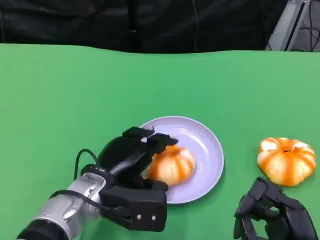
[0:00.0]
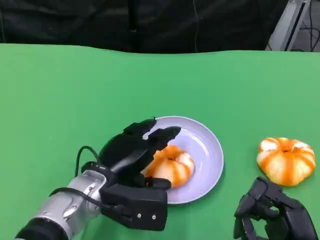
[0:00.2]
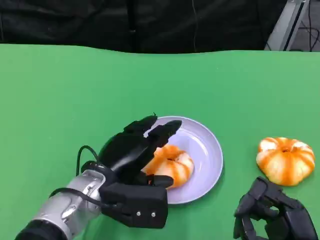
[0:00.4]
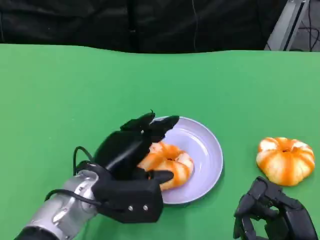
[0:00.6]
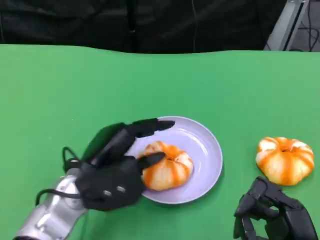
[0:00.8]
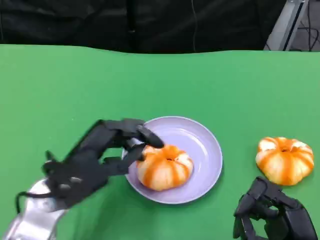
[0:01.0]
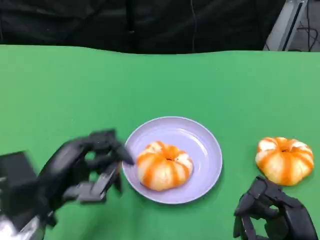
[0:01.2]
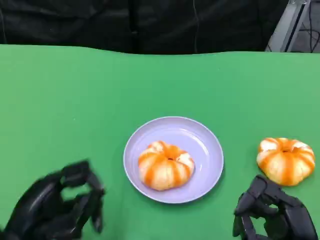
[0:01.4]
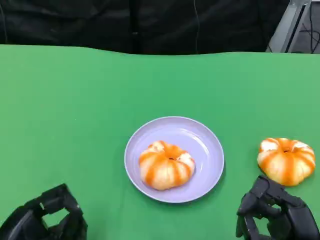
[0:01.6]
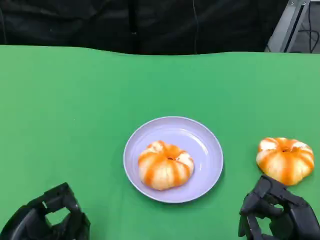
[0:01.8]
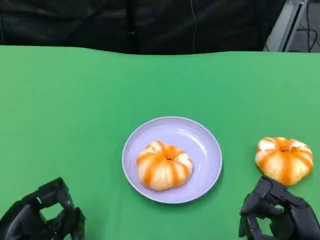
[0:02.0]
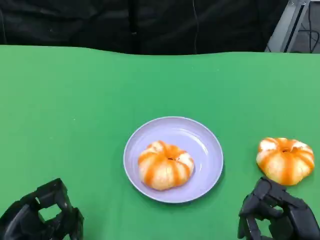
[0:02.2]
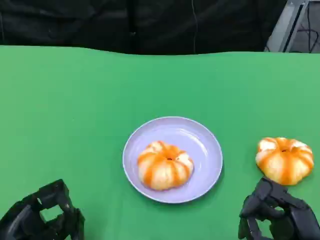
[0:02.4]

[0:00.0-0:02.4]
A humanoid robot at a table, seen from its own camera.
Task of the whole recording: Grasp the bread from the table and place it into the plate.
0:00.0 to 0:01.2: The left hand is displaced to the left and backward by some 10 cm.
0:01.2 to 0:02.4: The left hand travels backward by approximately 5 cm.

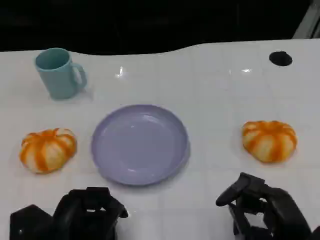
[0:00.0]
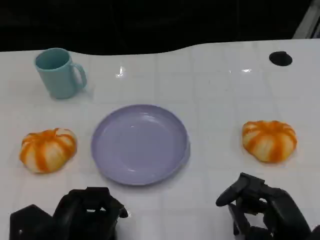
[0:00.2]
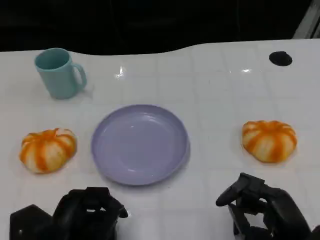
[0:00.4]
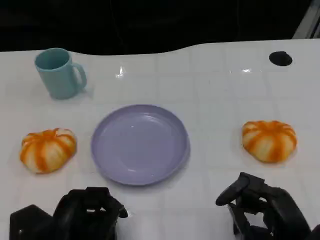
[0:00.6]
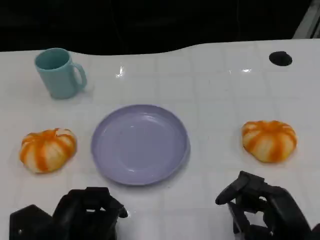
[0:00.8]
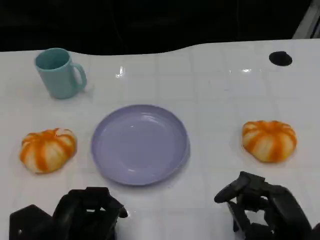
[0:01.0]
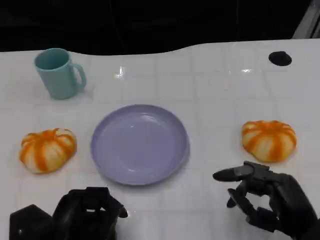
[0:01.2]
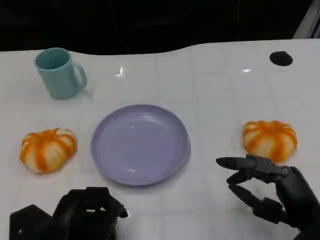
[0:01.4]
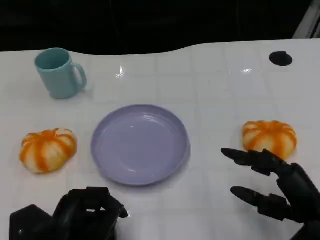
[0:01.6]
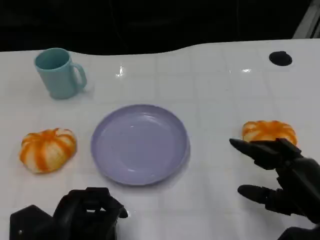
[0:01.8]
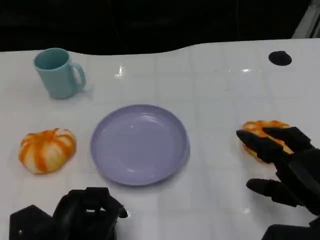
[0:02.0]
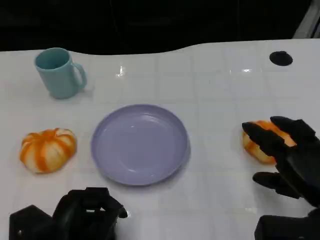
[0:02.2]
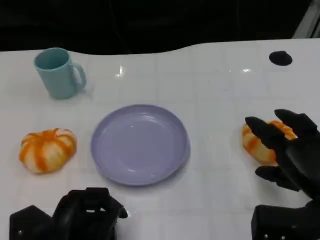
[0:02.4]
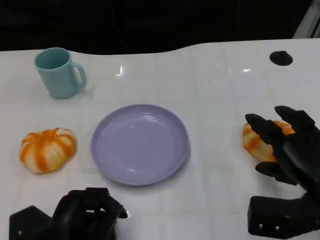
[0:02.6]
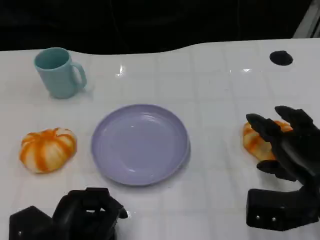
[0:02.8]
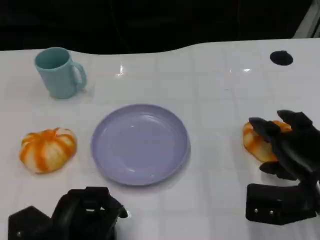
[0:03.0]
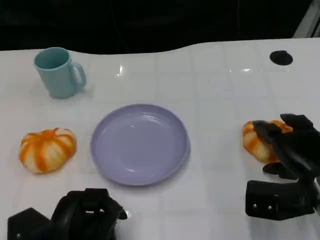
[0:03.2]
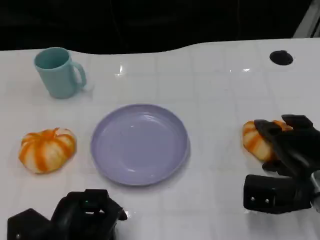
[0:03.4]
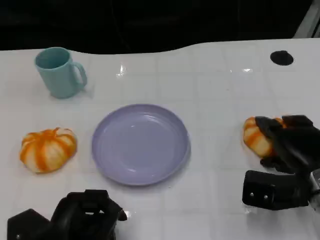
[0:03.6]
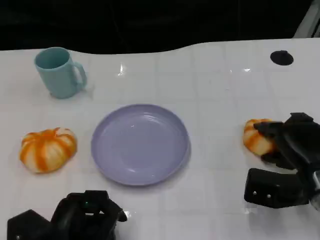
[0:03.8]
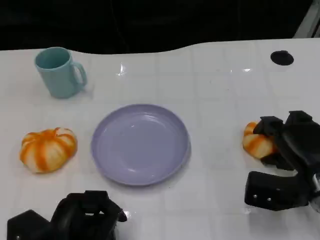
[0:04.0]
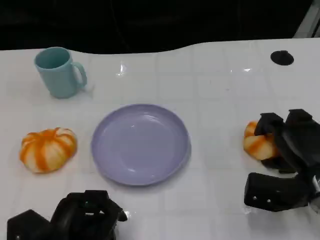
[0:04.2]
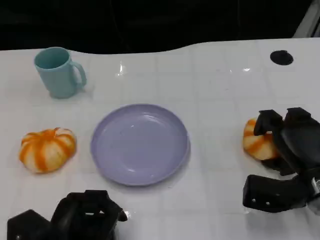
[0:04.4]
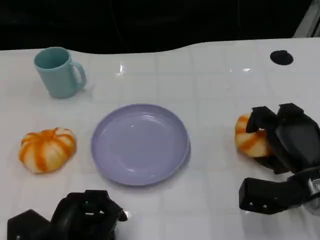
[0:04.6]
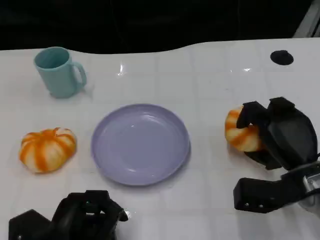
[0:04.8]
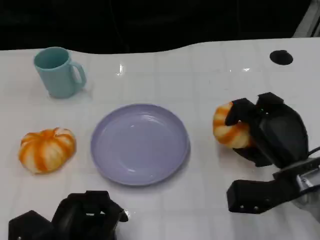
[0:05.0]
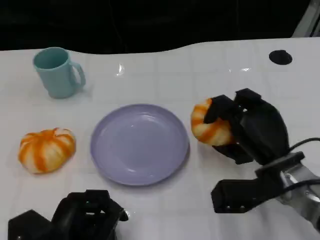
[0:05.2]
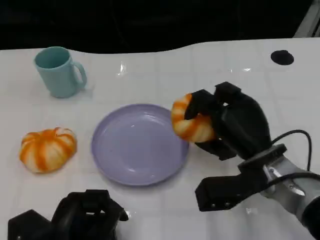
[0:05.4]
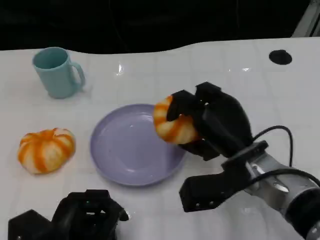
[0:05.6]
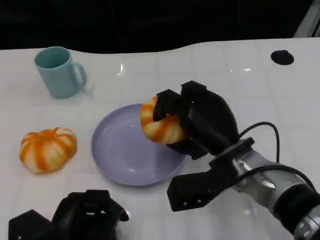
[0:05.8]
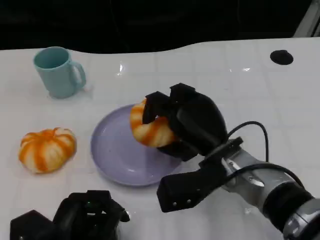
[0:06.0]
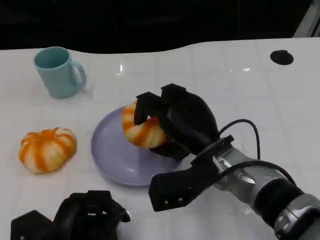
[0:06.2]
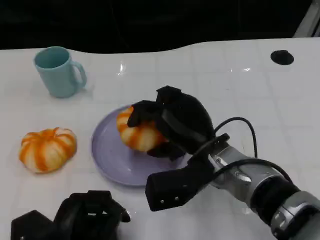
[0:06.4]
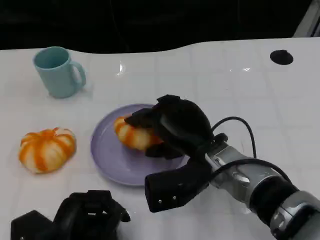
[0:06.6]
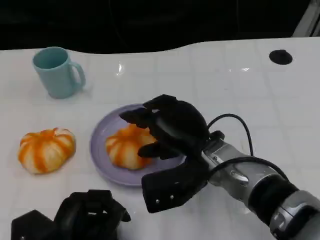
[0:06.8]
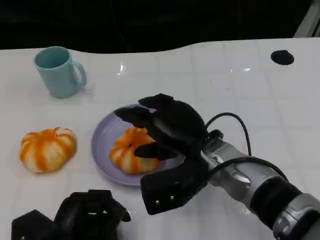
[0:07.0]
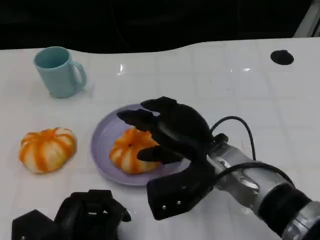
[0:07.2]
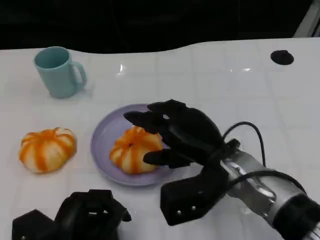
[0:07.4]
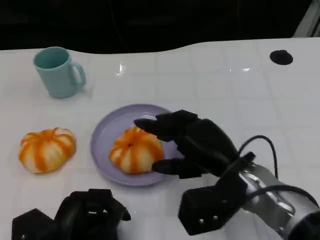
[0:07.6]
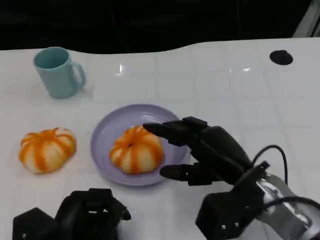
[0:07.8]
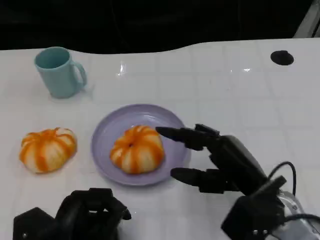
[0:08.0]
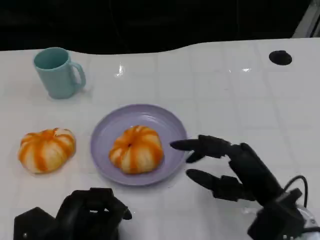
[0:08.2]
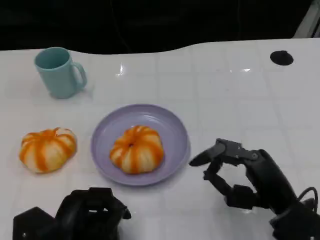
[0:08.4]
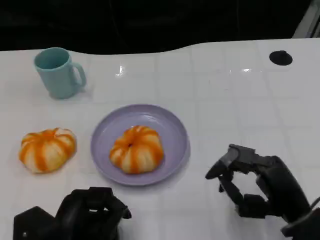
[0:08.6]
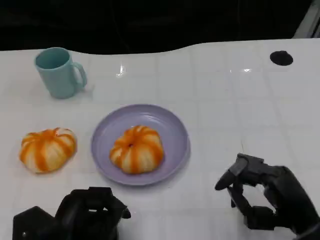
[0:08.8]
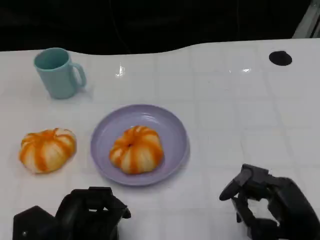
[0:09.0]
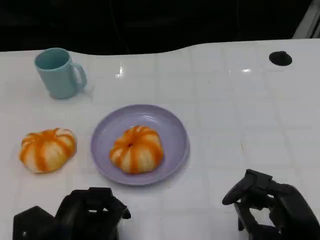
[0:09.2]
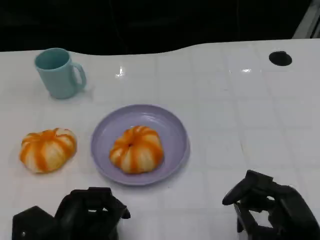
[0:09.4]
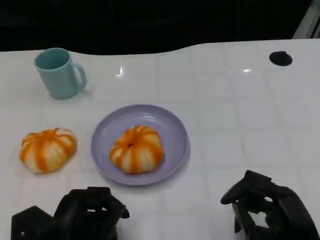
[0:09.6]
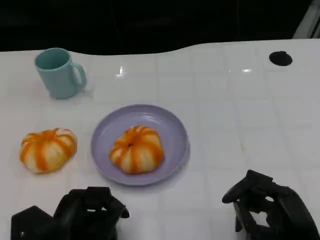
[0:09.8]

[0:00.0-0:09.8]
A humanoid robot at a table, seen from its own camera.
Task of the whole recording: Grasp the bread from the table and place it into the plate.
0:00.0 to 0:01.4: The hands move only a little.
0:01.4 to 0:02.8: The right hand goes some 5 cm forward.
0:02.8 to 0:04.2: The right hand changes place by about 5 cm.
0:04.2 to 0:05.6: The right hand shifts approximately 10 cm to the left.
0:05.6 to 0:07.0: The right hand is displaced to the left by approximately 5 cm.
0:07.0 to 0:08.4: The right hand goes roughly 15 cm to the right and backward.
0:08.4 to 0:09.8: The right hand shifts some 5 cm backward.

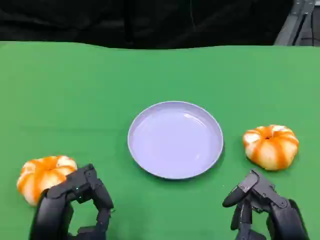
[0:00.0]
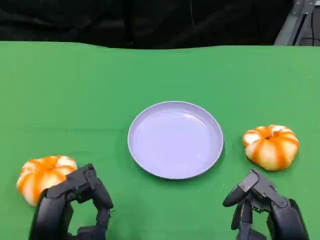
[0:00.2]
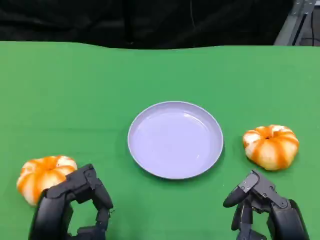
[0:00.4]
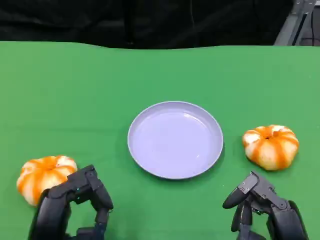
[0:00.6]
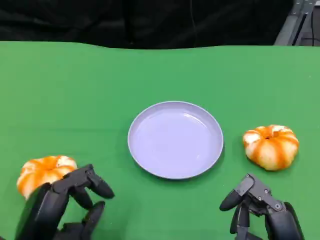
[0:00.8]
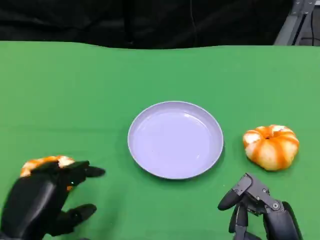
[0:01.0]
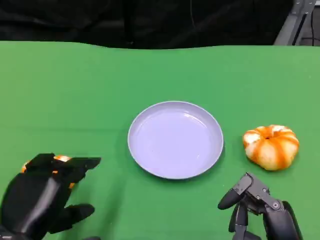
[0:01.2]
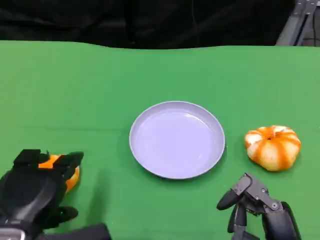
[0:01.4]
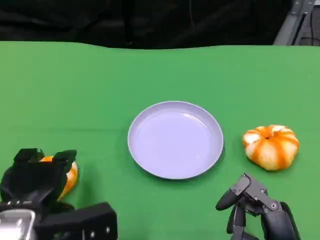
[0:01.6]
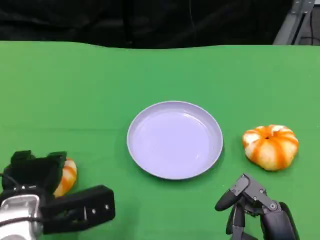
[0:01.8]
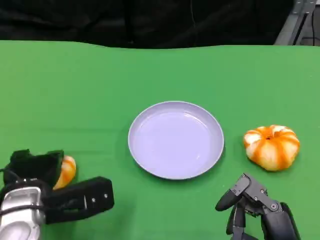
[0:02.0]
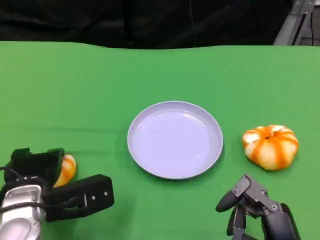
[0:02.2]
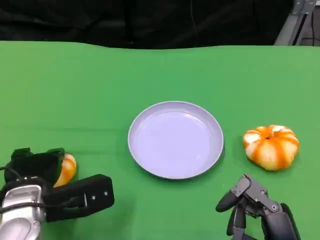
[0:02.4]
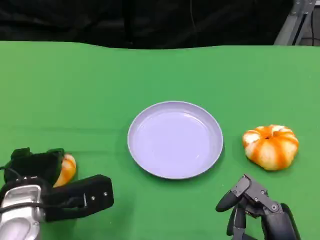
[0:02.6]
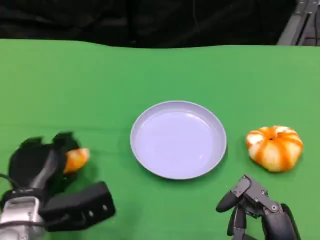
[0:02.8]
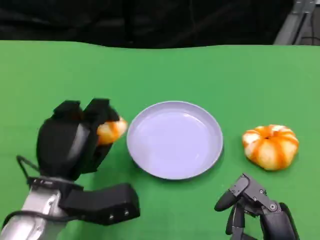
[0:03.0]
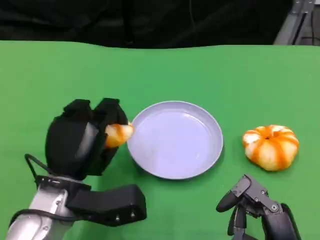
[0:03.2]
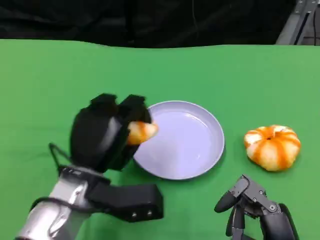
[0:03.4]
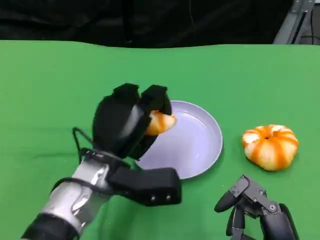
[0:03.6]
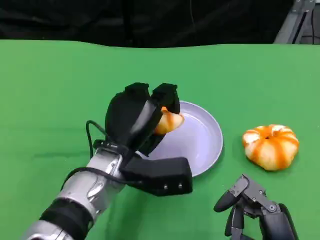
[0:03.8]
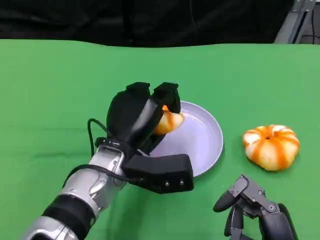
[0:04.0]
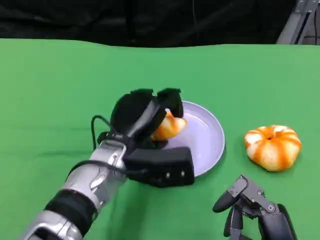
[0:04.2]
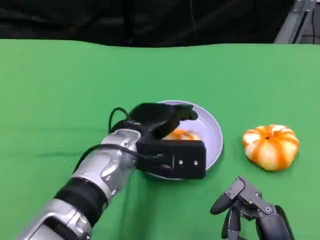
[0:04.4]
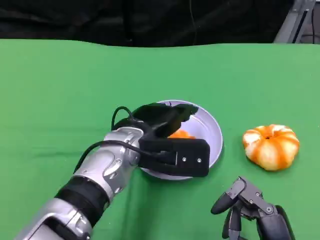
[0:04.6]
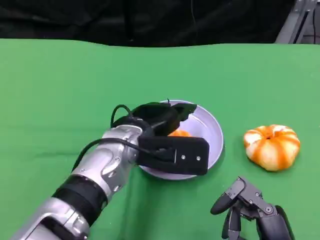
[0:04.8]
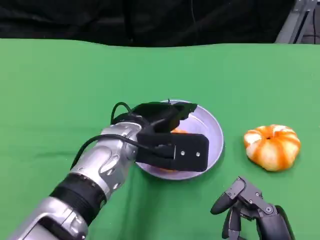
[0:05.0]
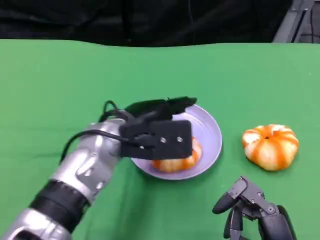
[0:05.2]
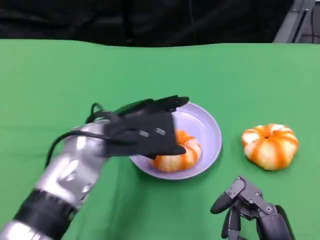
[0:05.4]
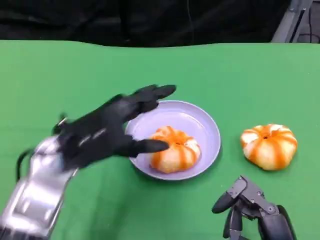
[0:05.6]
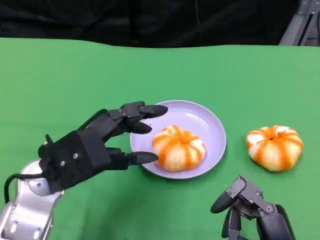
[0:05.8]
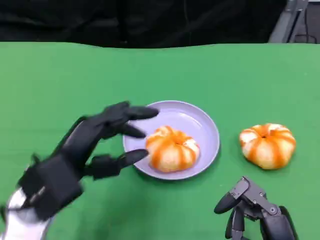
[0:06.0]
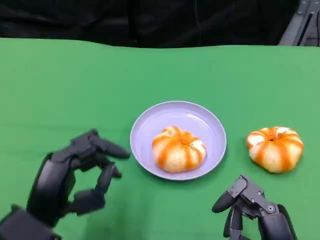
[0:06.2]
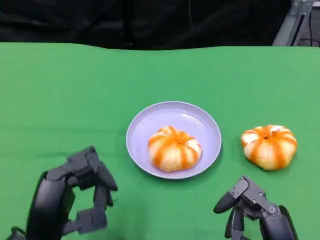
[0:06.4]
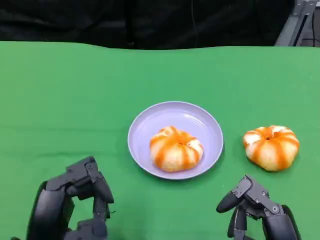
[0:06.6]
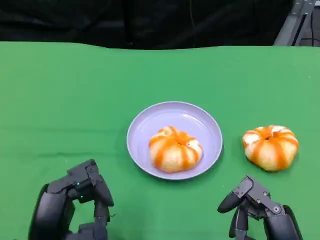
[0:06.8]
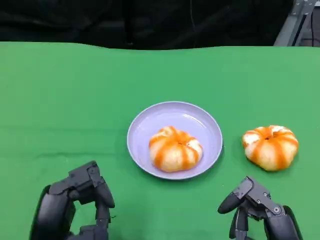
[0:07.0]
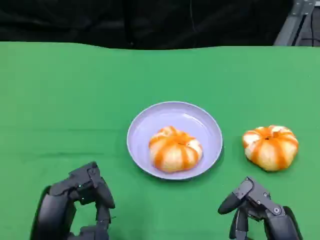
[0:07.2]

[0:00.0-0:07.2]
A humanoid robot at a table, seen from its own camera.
Task of the whole recording: Grasp the bread from the table and place it into the plate.
0:00.0 to 0:01.4: The left hand moves some 5 cm.
0:01.4 to 0:02.8: The left hand shifts roughly 5 cm forward.
0:02.8 to 0:04.4: The left hand is displaced to the right, forward and upward by roughly 15 cm.
0:04.4 to 0:05.8: The left hand travels to the left by some 10 cm.
0:05.8 to 0:07.2: The left hand goes roughly 10 cm backward and downward.

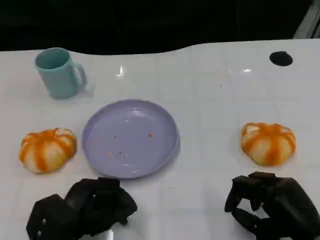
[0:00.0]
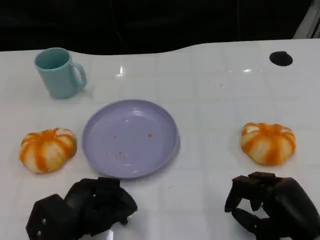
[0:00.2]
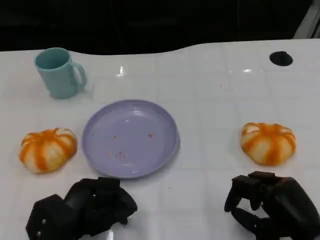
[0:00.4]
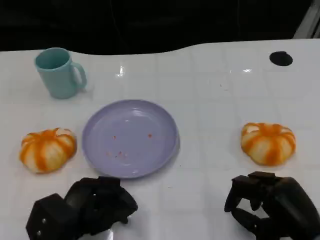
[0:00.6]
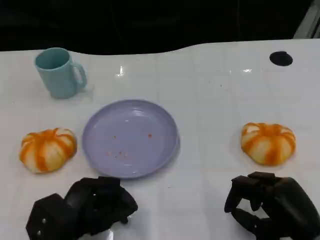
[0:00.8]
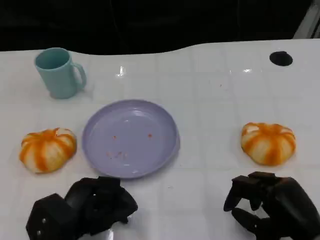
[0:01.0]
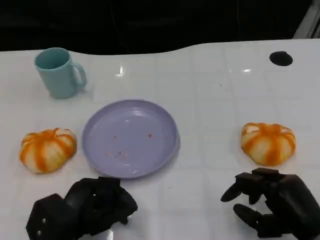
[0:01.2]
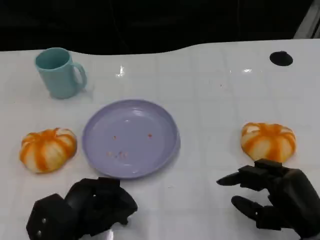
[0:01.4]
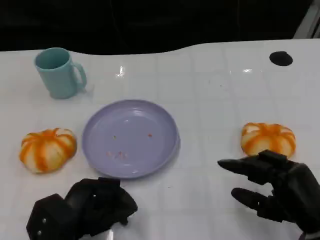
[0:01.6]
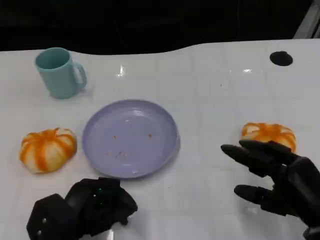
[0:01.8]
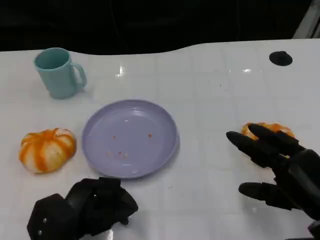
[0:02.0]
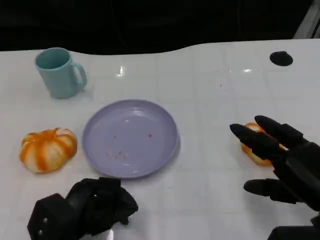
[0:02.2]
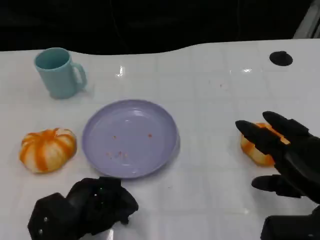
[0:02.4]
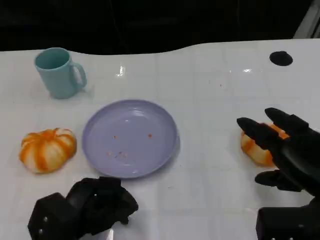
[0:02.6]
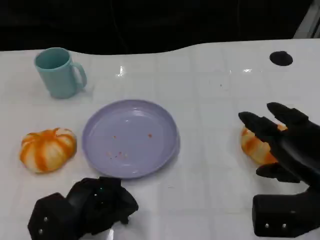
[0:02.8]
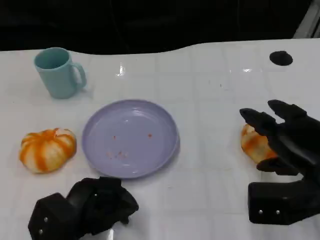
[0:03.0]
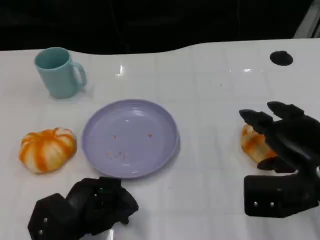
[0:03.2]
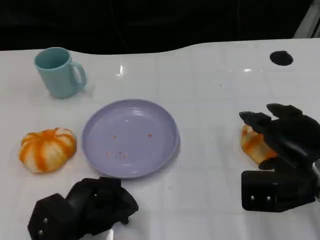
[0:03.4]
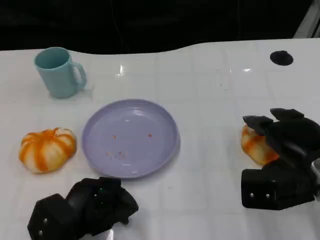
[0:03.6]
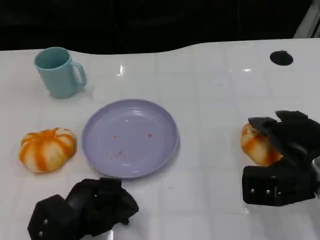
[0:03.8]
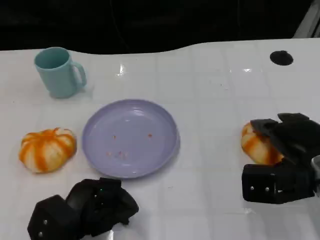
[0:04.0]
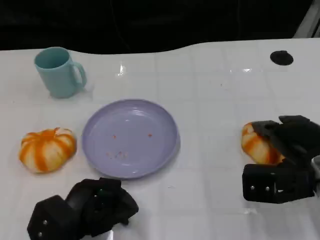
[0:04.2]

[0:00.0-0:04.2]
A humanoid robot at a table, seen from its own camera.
Task of the whole recording: Grasp the bread from the table and place it into the plate.
0:00.0 to 0:01.4: The hands make only small movements.
0:01.4 to 0:02.8: The right hand heads upward, covering roughly 5 cm.
0:02.8 to 0:04.2: The right hand ends up roughly 5 cm from where it was.
